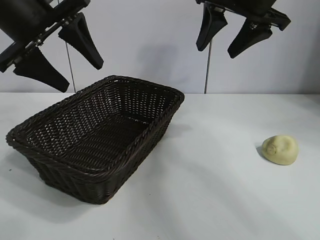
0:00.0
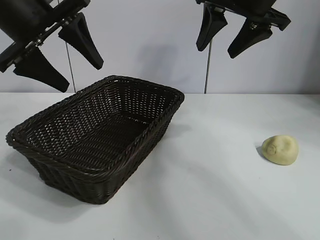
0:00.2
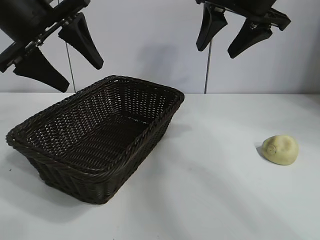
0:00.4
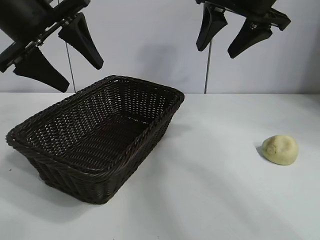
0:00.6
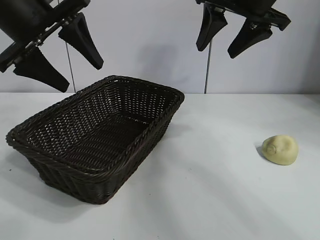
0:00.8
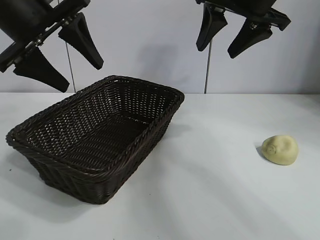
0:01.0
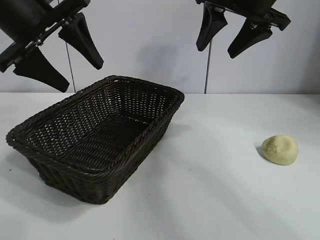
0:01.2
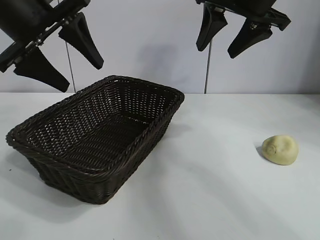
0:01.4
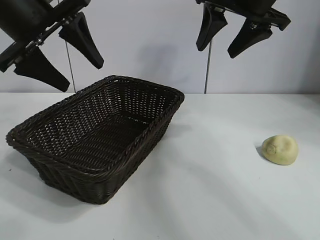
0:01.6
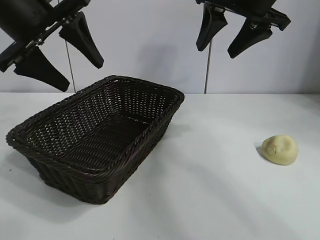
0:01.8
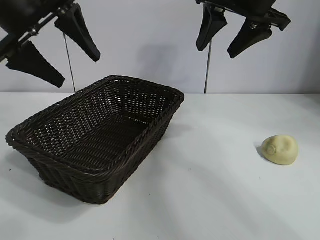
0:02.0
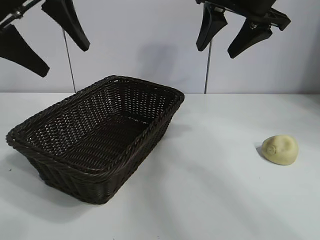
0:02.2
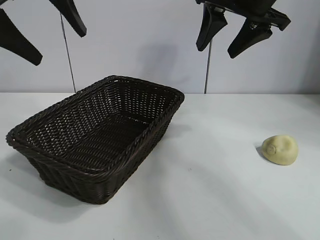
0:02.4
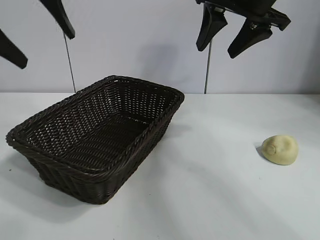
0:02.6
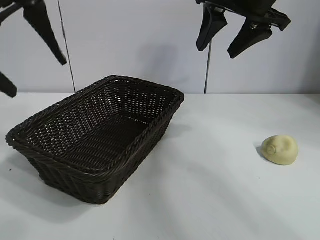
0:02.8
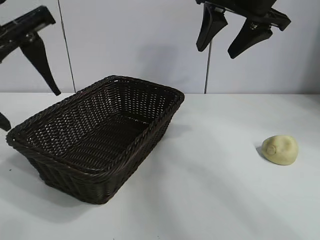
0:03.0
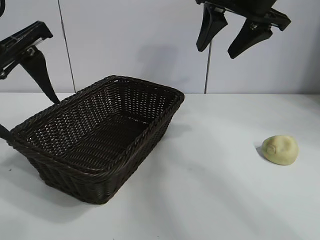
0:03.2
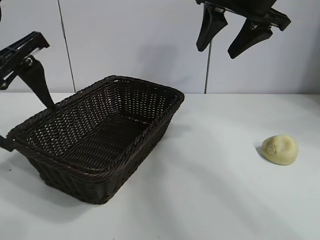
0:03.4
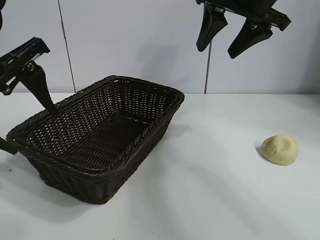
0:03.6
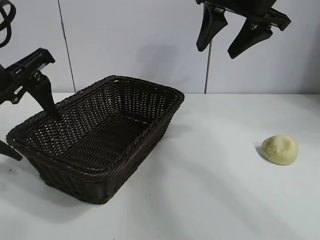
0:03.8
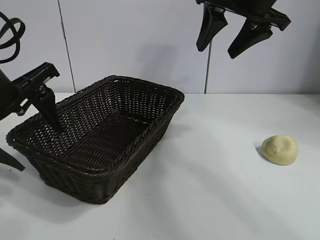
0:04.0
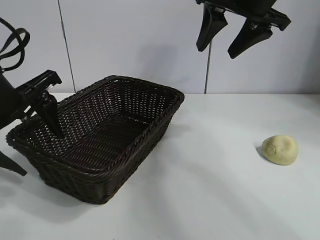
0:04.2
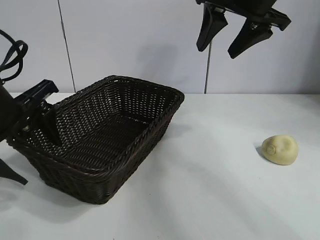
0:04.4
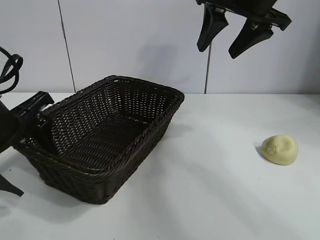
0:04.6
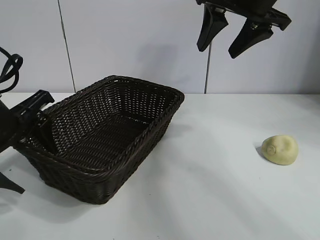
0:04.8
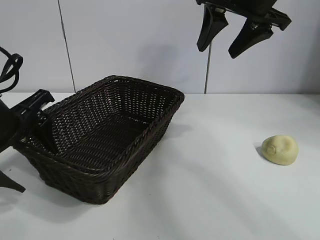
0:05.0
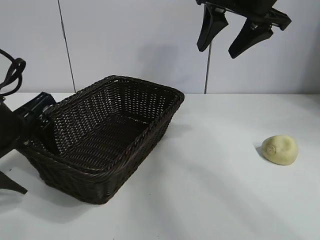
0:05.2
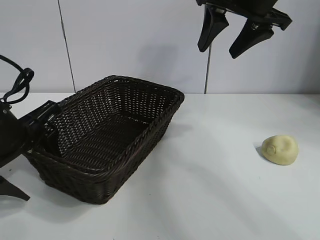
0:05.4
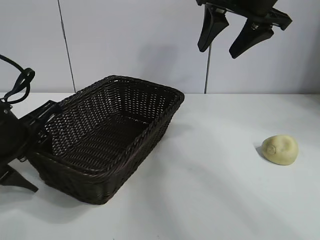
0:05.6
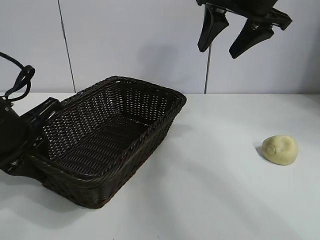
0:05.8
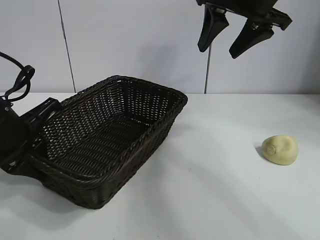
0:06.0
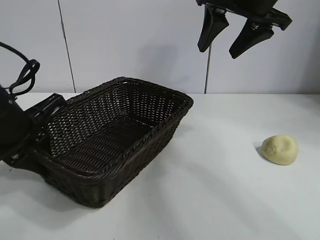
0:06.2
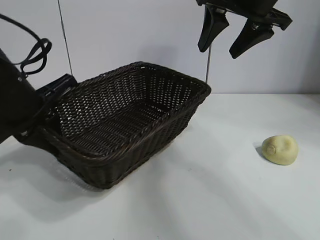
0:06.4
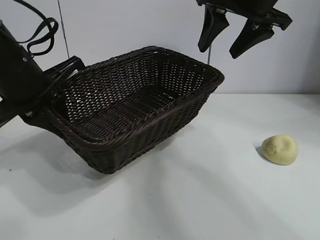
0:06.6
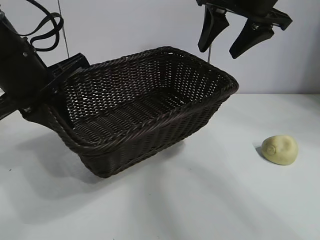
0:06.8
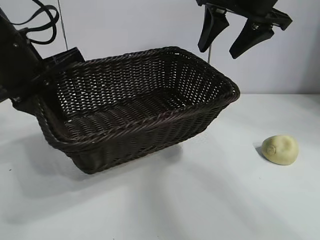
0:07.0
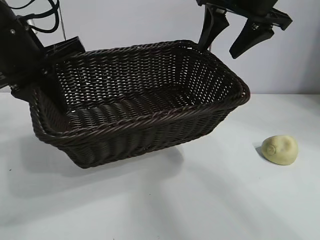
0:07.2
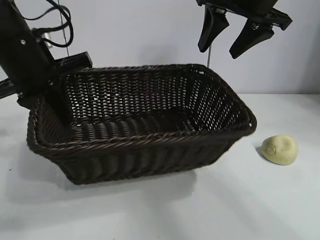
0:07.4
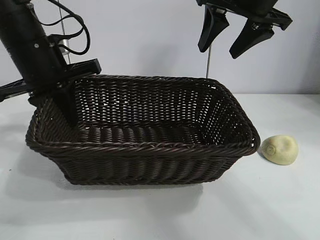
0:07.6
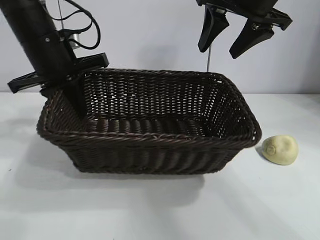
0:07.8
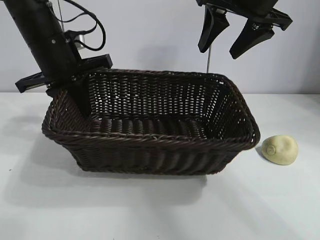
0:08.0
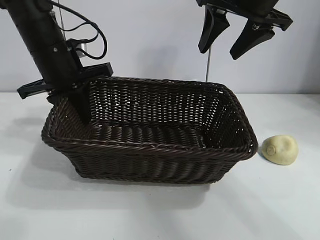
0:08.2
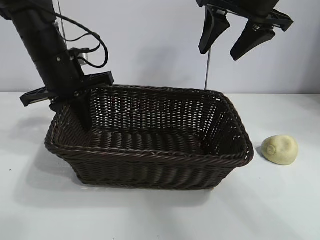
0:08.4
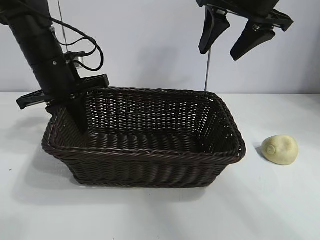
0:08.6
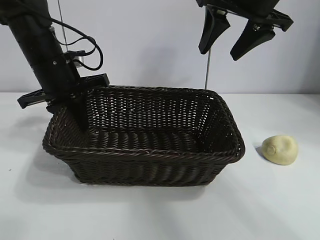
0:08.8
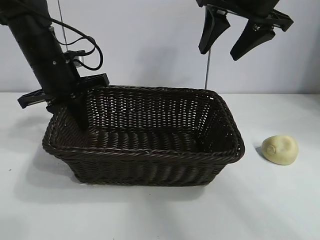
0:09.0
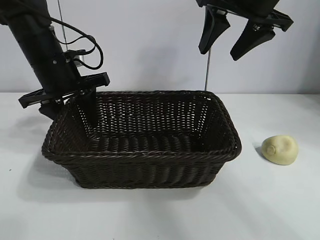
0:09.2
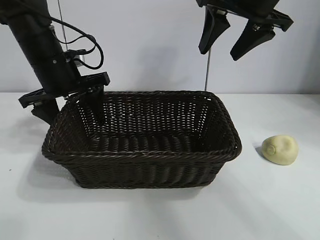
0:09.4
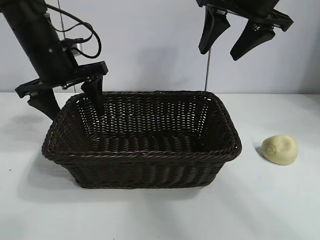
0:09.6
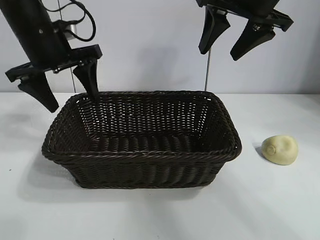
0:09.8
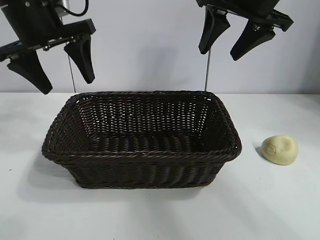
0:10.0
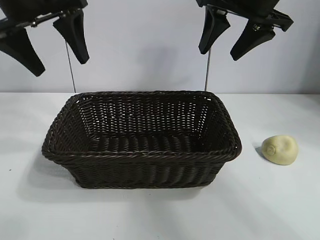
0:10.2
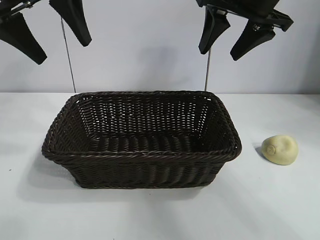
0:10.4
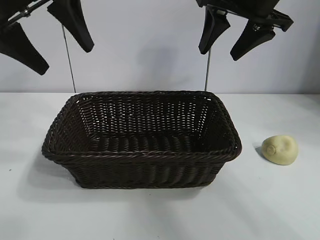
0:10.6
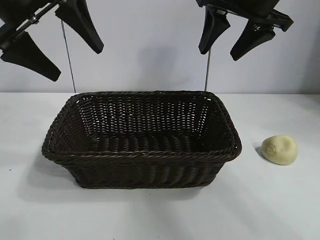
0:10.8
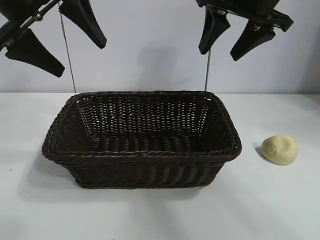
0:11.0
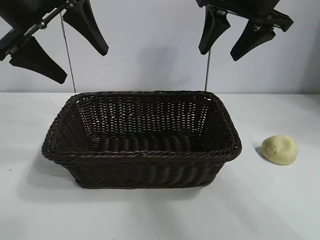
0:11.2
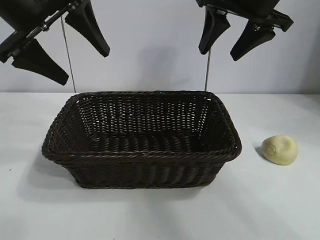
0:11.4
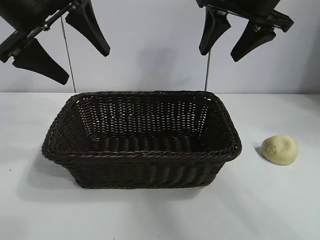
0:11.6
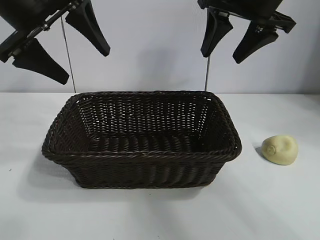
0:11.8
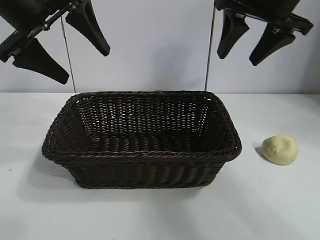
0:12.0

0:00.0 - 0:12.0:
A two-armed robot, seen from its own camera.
Task of the whole recording: pick up the egg yolk pastry and put it into the basket.
Step, 0:01.4 - 0:05.8: Grasp the basket with left gripper.
Step, 0:06.0 - 0:09.2: Place the basket in the center of view with left gripper.

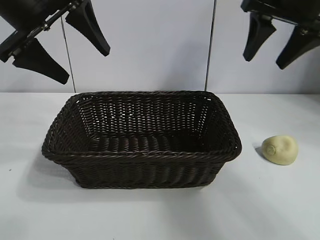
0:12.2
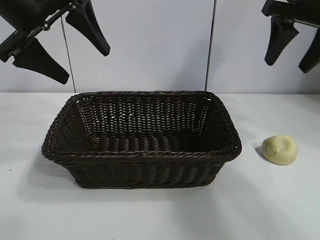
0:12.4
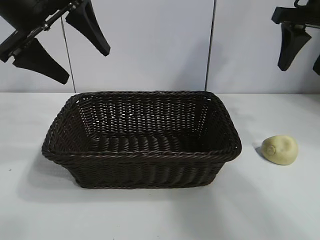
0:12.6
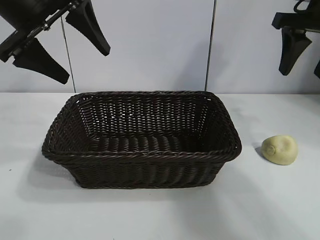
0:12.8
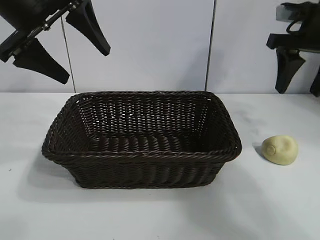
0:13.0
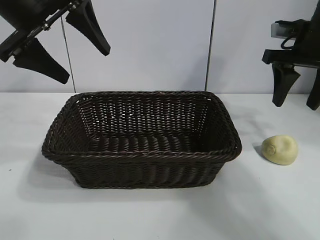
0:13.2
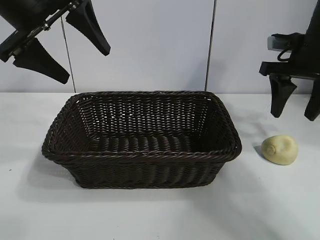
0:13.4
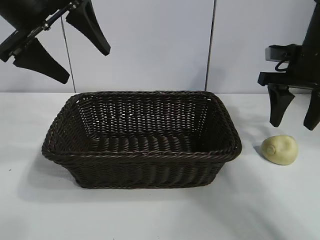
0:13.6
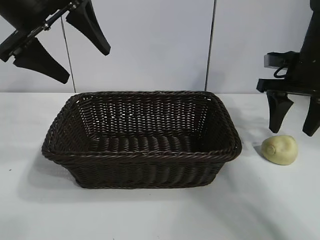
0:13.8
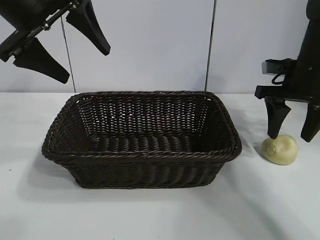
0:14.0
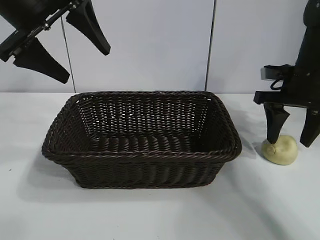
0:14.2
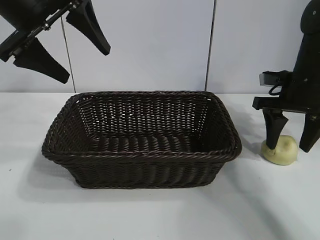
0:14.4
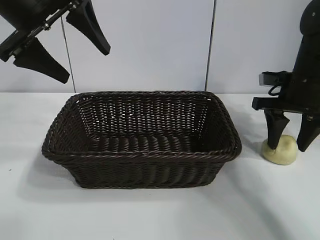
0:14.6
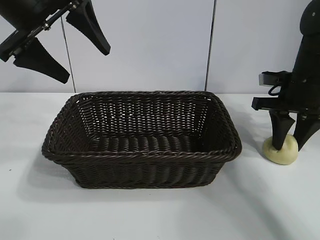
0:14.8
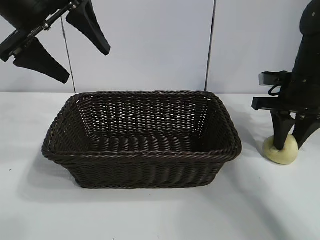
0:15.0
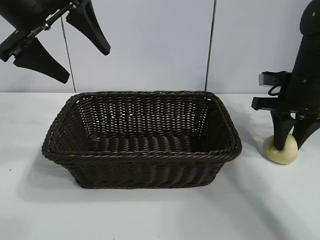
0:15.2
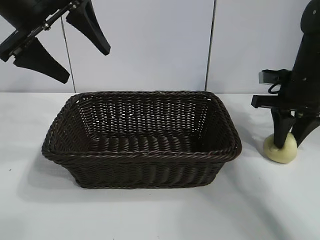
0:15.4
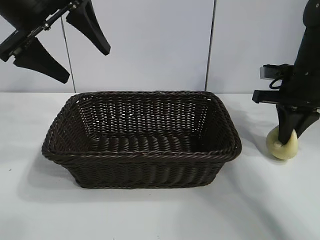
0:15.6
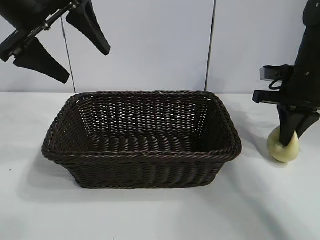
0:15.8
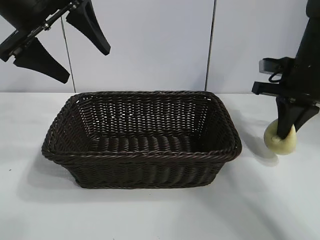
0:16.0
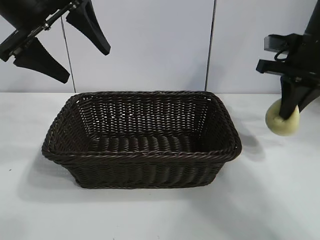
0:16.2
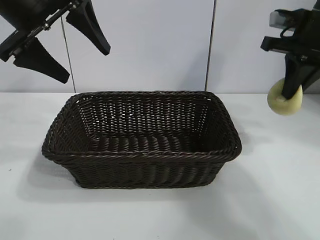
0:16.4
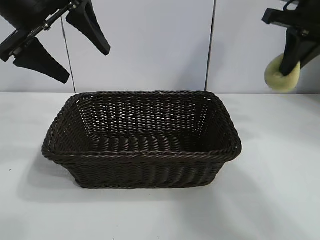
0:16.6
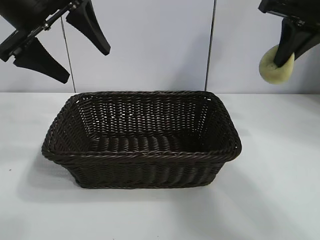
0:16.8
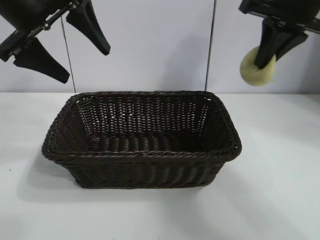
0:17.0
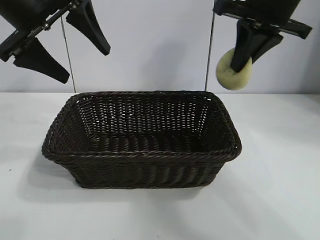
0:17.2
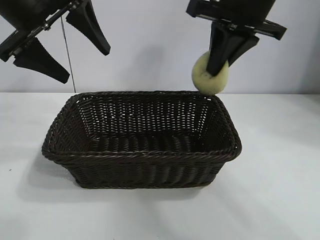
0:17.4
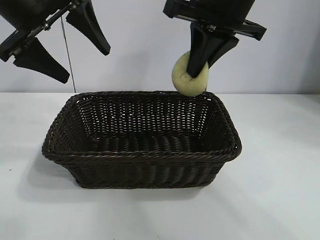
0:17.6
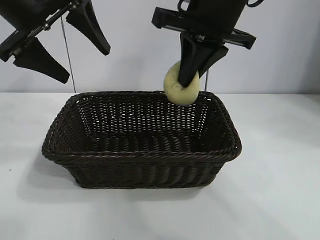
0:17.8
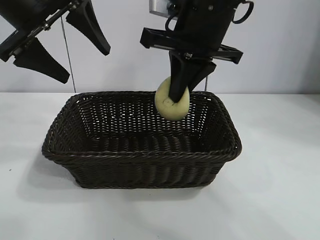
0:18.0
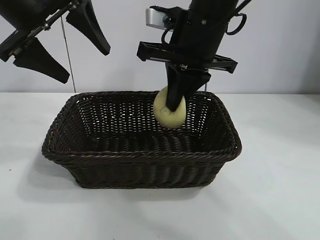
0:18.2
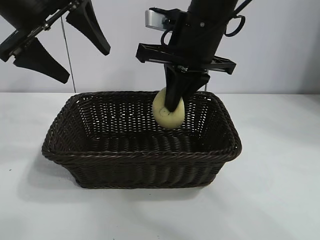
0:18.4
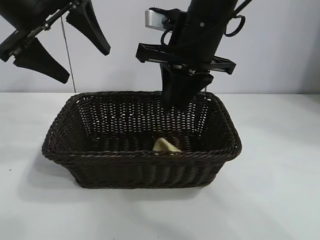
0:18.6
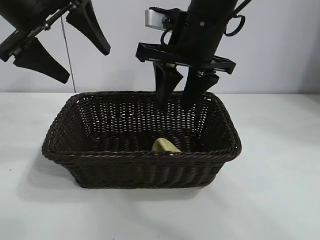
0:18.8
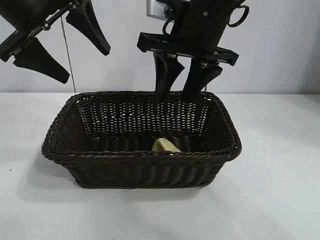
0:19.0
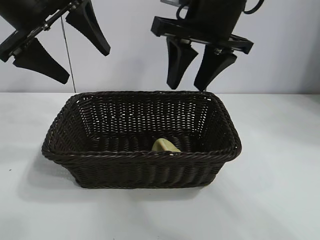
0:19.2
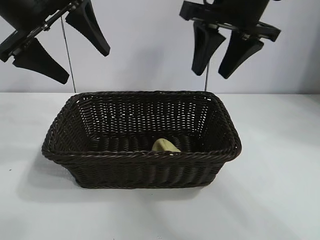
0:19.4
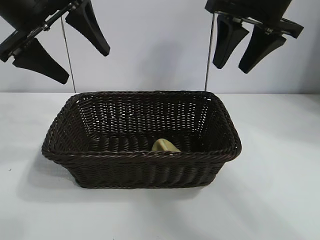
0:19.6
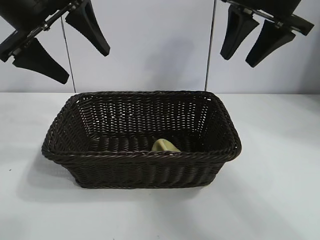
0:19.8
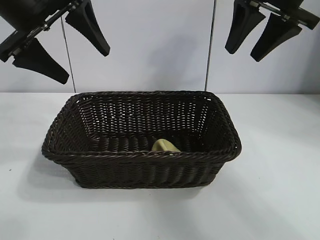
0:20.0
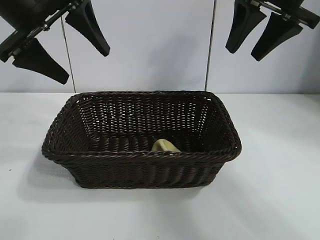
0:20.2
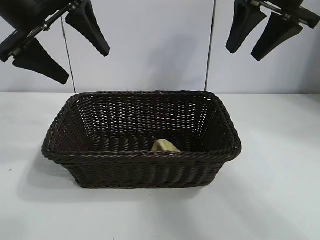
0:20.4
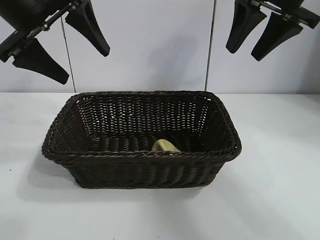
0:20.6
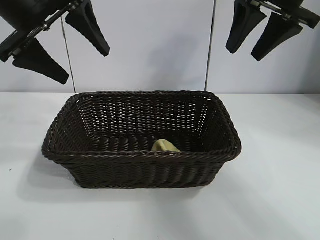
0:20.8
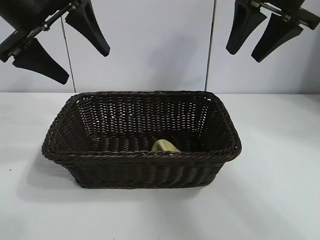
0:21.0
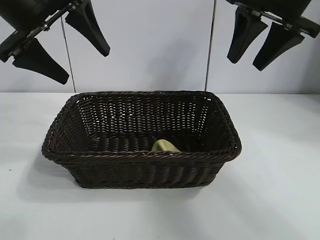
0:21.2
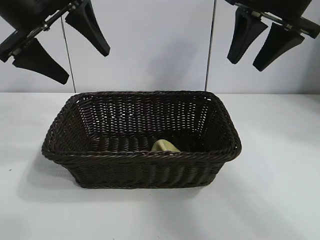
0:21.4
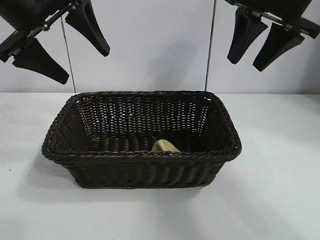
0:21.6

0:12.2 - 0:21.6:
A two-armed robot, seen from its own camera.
Task of the whole recording: pick up the egg yolk pastry and put it into the basket.
Step, 0:12.2 - 0:15.0: Grasp egg yolk pastry with right gripper.
Step, 0:15.2 - 0:18.6: Place the egg yolk pastry in the basket with right gripper.
